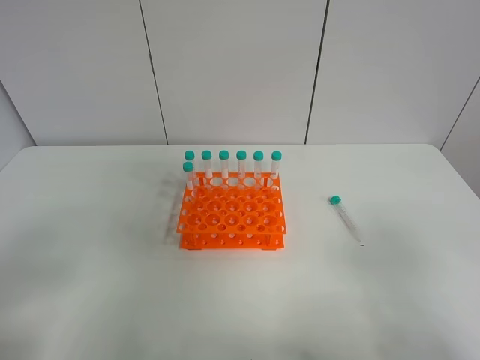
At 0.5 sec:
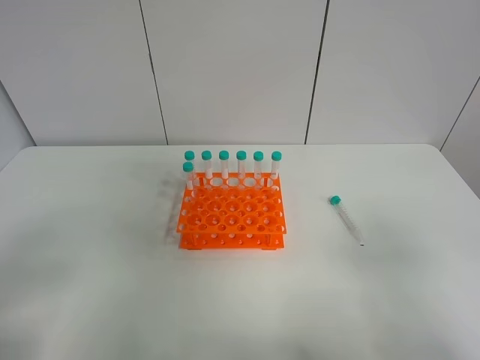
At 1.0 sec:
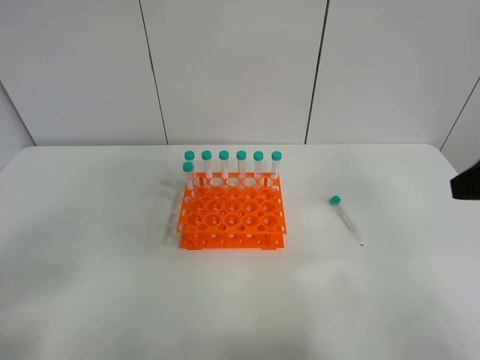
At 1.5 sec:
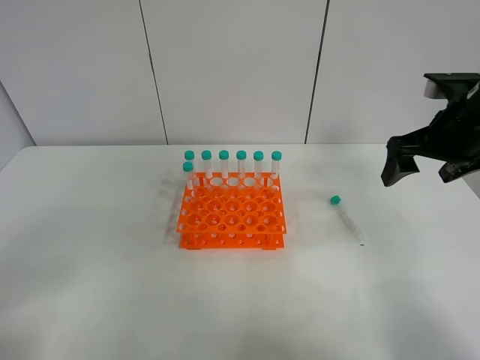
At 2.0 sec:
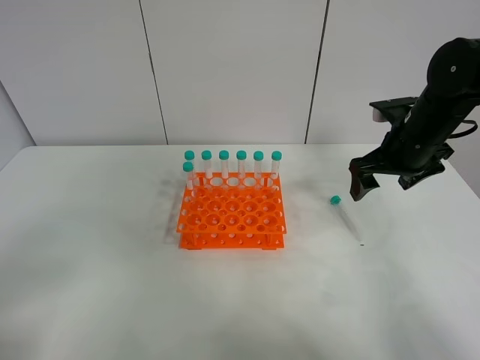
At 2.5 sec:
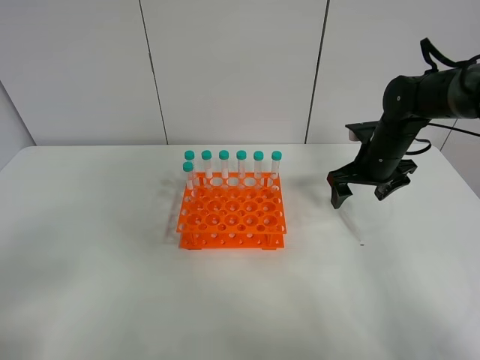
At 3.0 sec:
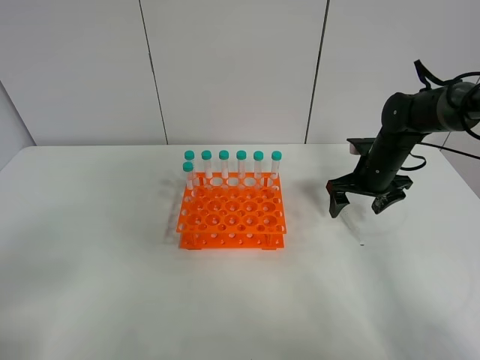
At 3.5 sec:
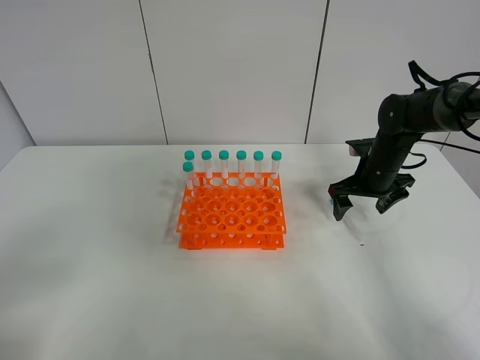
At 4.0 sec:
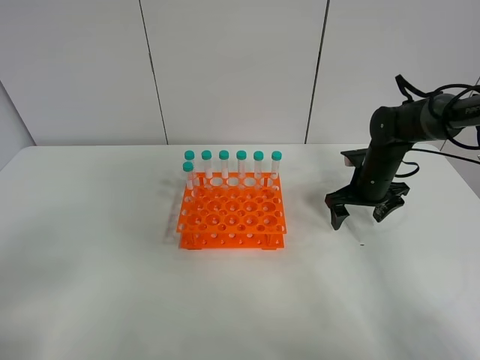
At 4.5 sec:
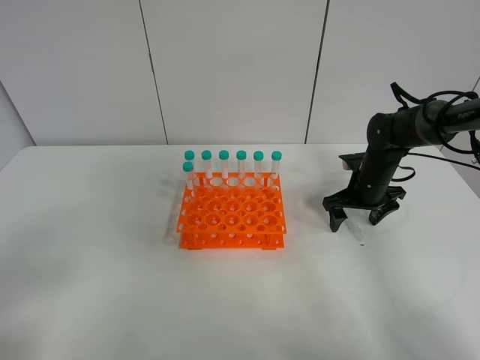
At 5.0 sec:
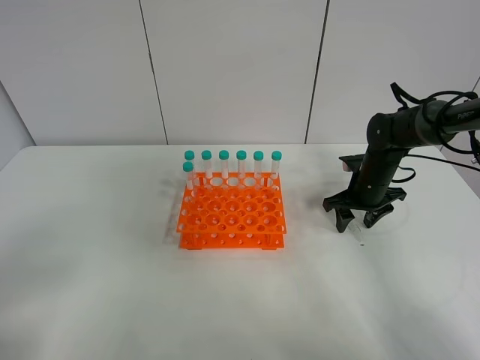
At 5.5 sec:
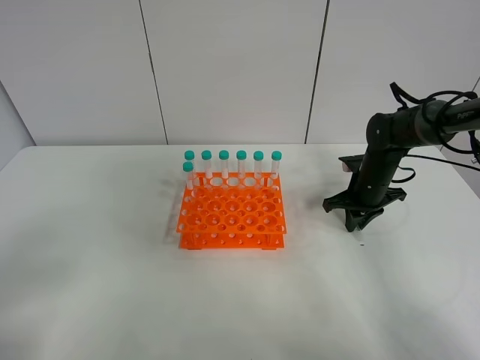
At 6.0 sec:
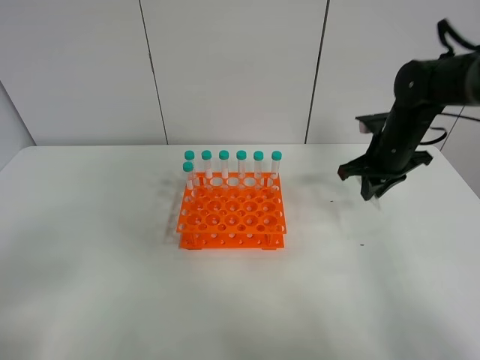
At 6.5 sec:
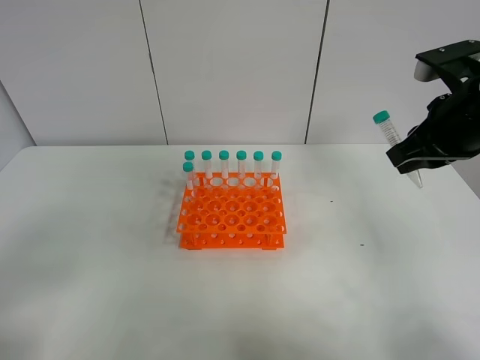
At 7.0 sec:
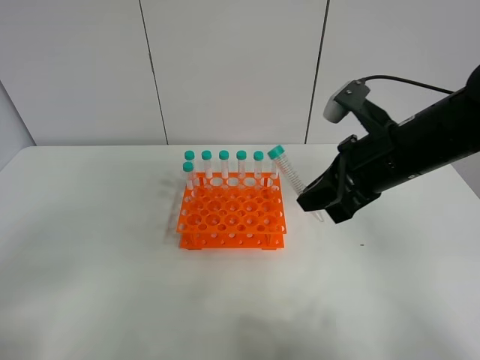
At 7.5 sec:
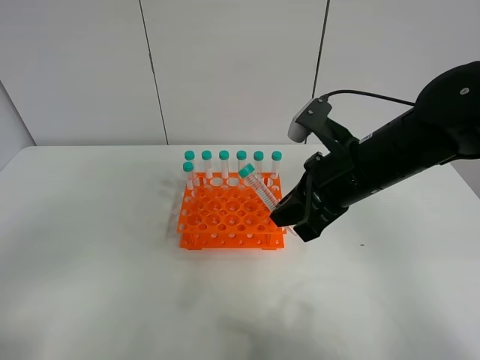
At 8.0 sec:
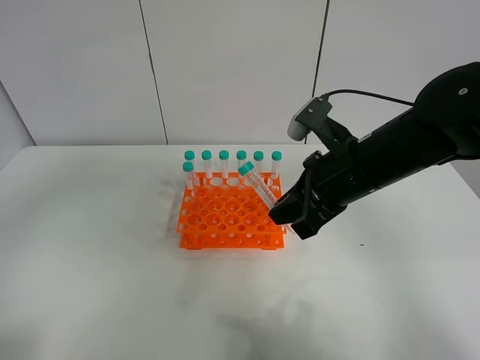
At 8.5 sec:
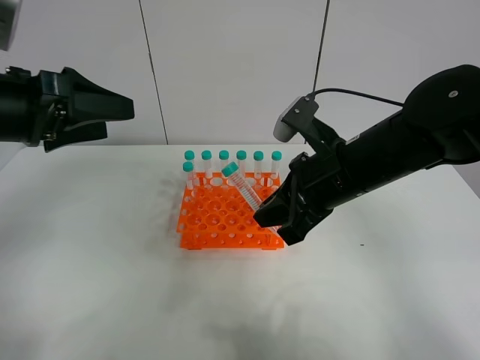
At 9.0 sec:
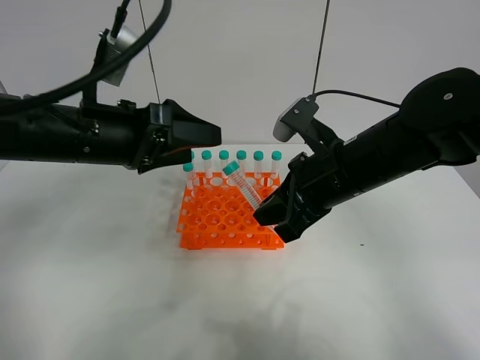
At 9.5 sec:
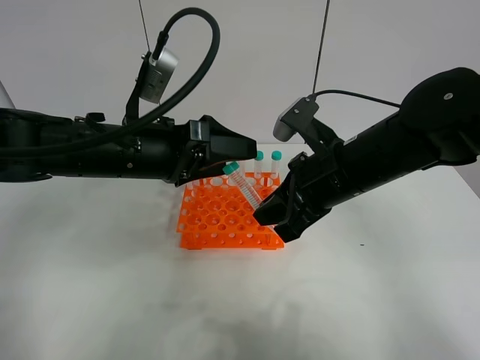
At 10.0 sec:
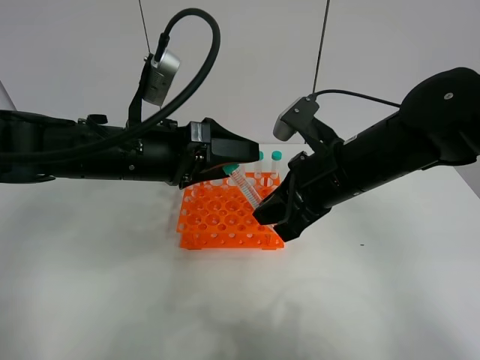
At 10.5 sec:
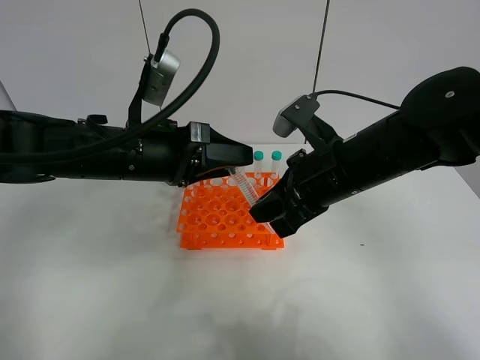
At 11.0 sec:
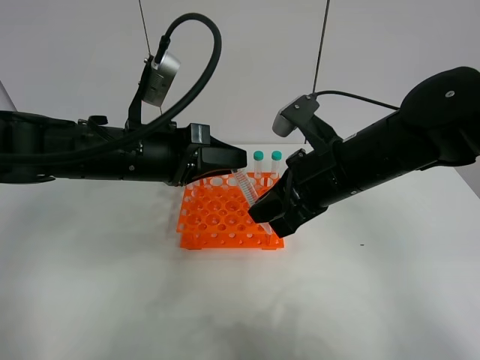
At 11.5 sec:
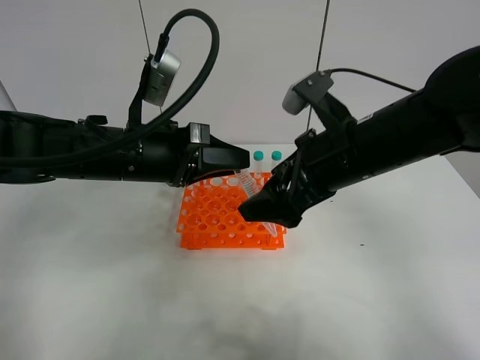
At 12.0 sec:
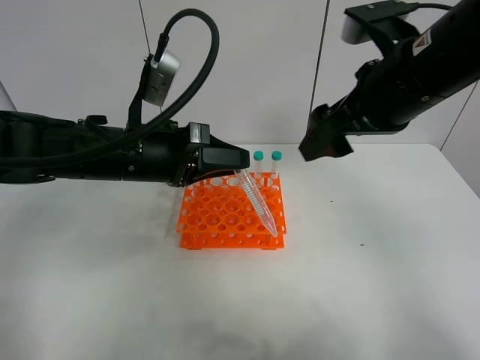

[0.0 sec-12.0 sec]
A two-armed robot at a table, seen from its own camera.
Task of the whole recording: Put the test tube on the table back onto the test tube rack.
Step, 0.0 sec to 6.0 sec: Pick up the test tube with the right gripper.
Step, 6.5 sec to 12.0 sec: Move the test tube from the right gripper to the left gripper.
0.0 sec to 2.0 sec: The right gripper goes some 35 cm forward.
2.0 sec to 4.0 sec: The right gripper is displaced downward and forward by some 15 cm.
4.0 sec to 6.0 sec: The right gripper goes roughly 10 cm upward, and closes up.
6.0 sec to 8.0 sec: The left gripper moves forward and upward, approximately 15 cm. The right gripper travels backward and to the left by approximately 15 cm.
8.0 sec to 10.0 sec: The left gripper moves to the right, forward and downward, approximately 25 cm.
10.0 sec to 12.0 sec: The left gripper closes up. Meanwhile the right gripper is displaced upward and to the right by some 10 cm, and opens its fingers.

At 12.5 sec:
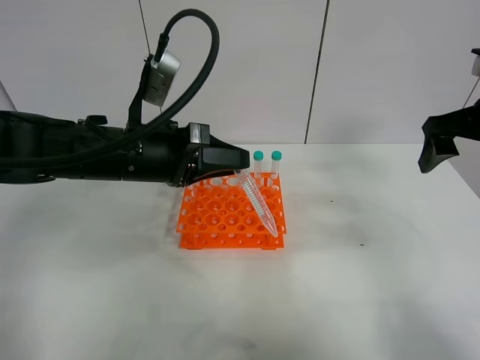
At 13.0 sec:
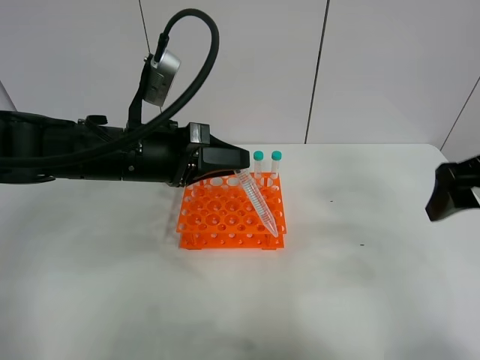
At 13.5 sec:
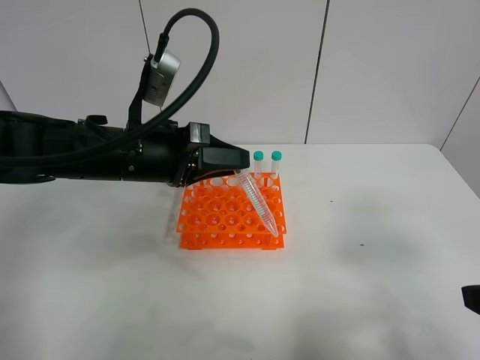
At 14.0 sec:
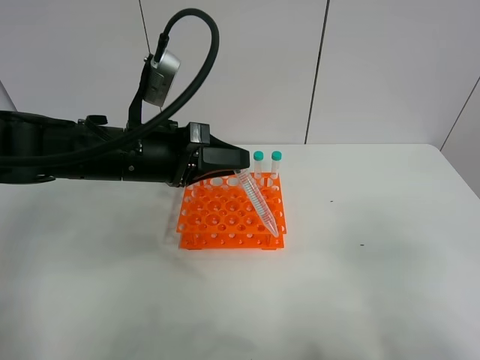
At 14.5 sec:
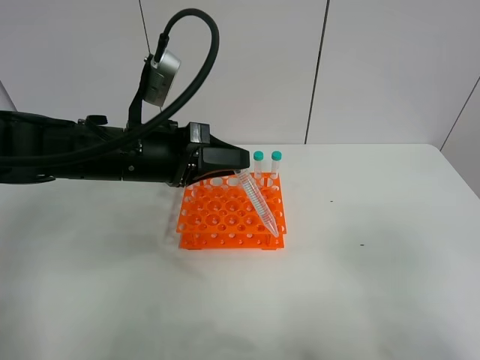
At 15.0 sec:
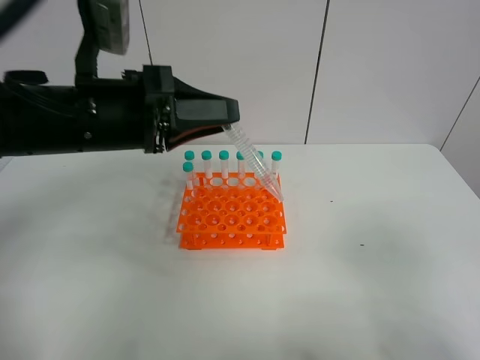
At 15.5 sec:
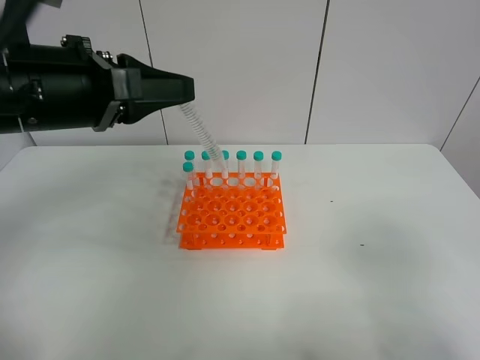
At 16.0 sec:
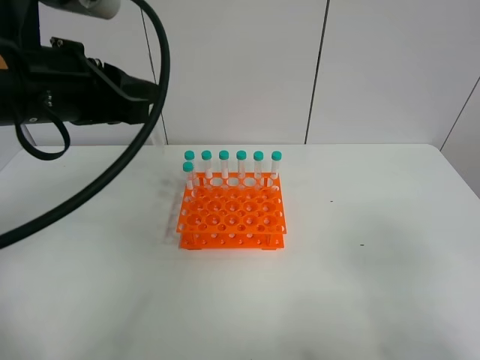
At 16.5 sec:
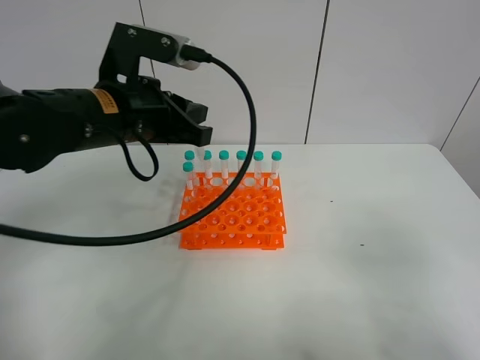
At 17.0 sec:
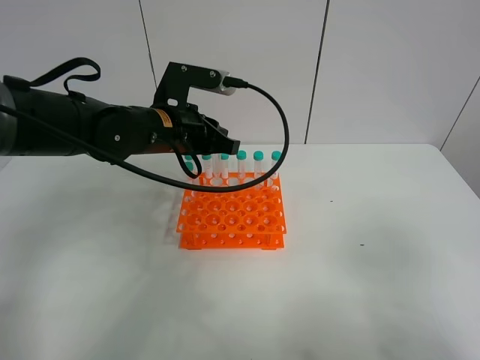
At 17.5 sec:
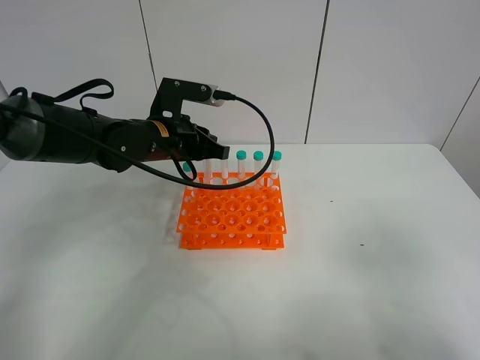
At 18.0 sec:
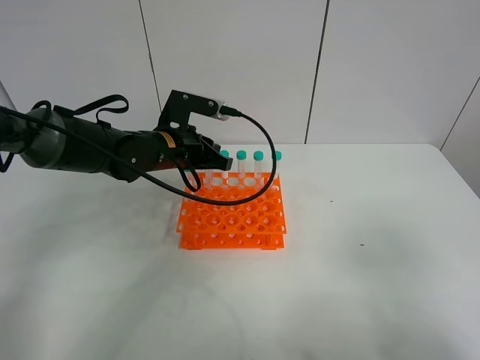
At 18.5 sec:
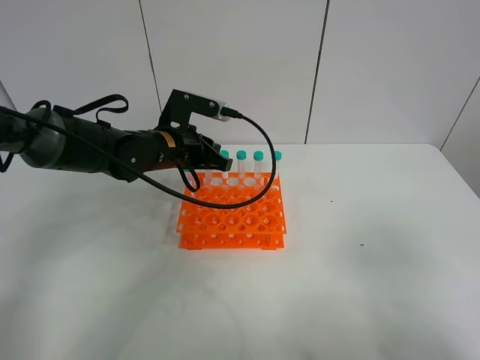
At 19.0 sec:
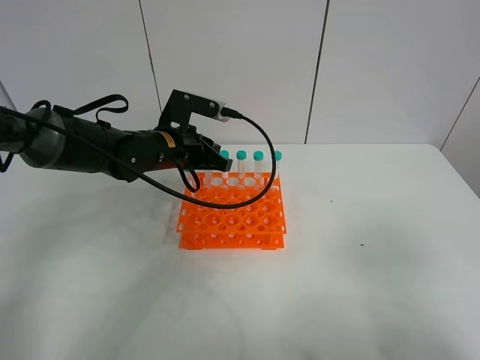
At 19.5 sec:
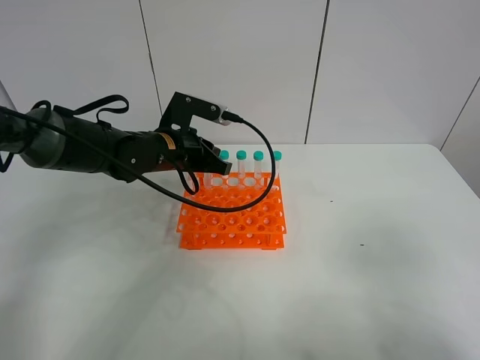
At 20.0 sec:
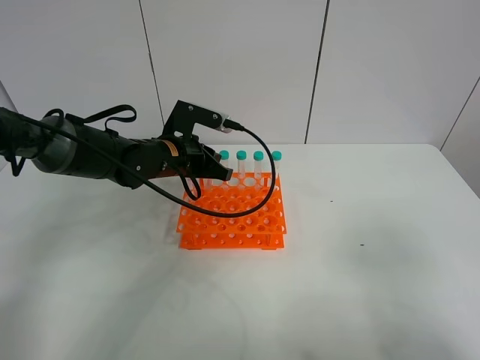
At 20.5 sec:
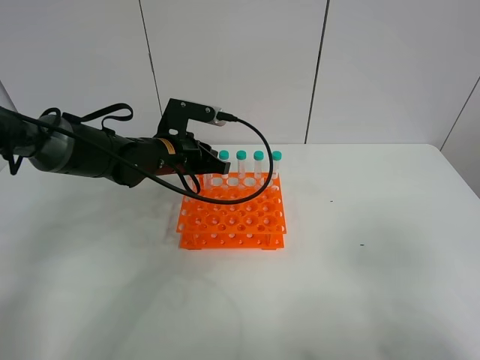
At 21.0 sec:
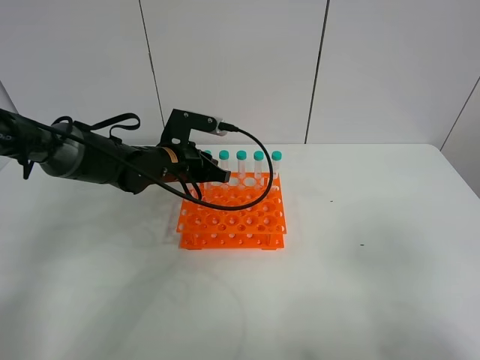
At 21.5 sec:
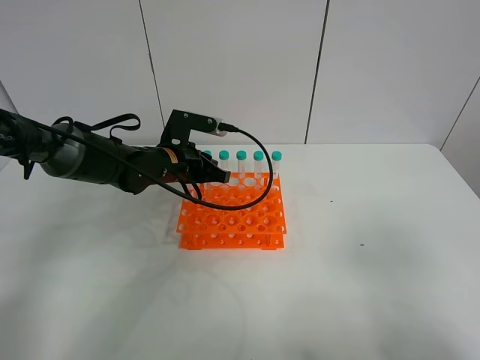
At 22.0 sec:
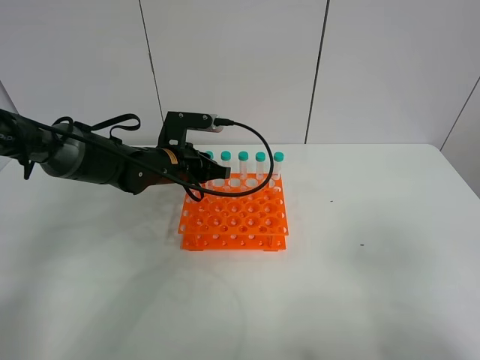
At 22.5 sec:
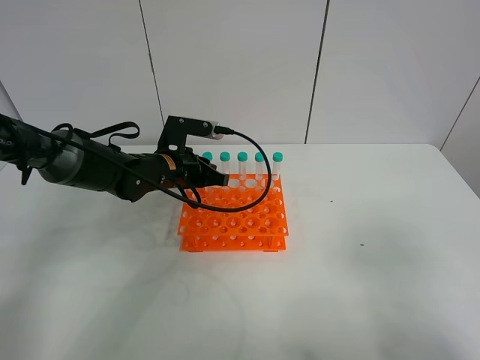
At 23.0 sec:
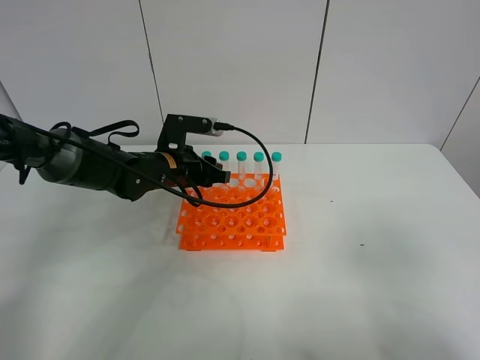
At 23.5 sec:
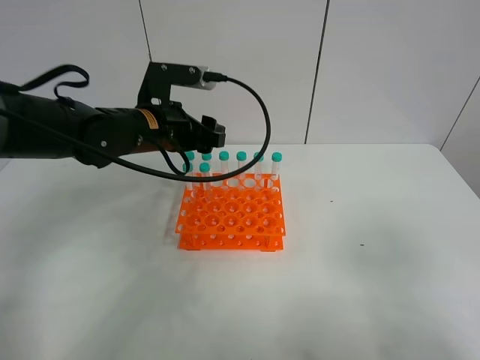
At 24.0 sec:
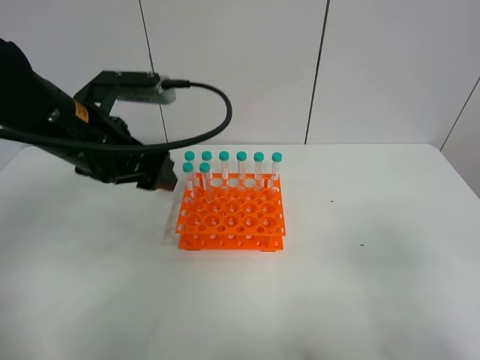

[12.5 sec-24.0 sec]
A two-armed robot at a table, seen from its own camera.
Task of the whole recording: Put the test tube on the table back onto the test tube rack.
Step, 12.5 sec to 24.0 sec: Place the test tube on the test tube rack with the left gripper.
12.5 sec to 14.5 sec: The right gripper shifts approximately 30 cm backward.
14.5 sec to 16.5 sec: The left gripper goes some 5 cm upward.
16.5 sec to 18.5 sec: The left gripper heads downward and forward, covering approximately 15 cm.
18.5 sec to 22.0 sec: The grippers make only small movements.
22.0 sec to 24.0 sec: The left gripper heads upward, backward and to the left, covering roughly 20 cm, and opens up.

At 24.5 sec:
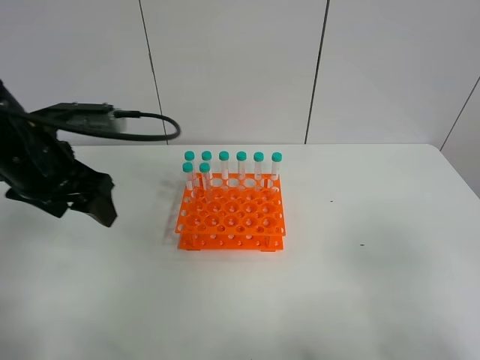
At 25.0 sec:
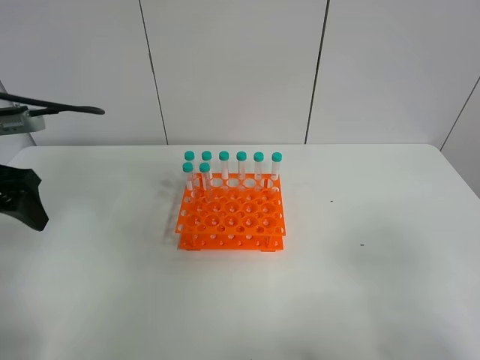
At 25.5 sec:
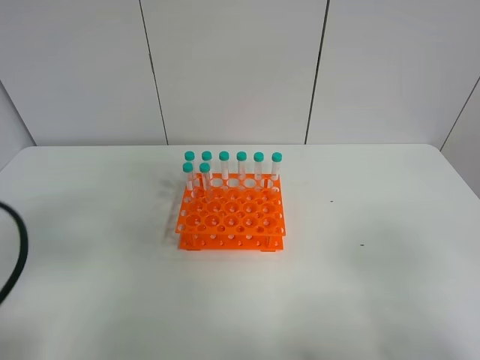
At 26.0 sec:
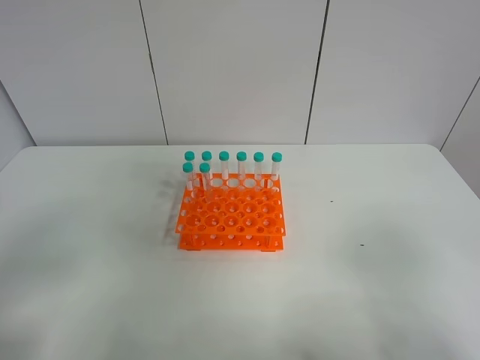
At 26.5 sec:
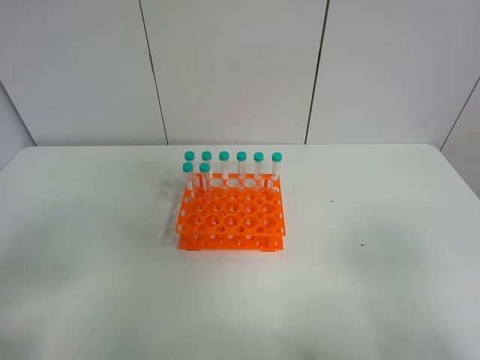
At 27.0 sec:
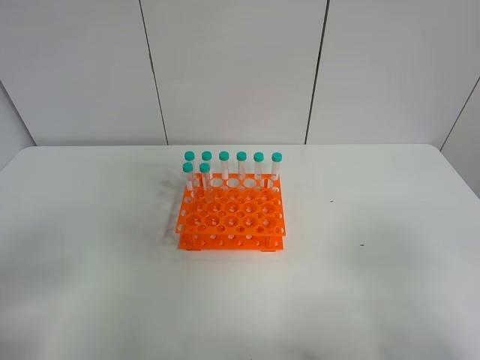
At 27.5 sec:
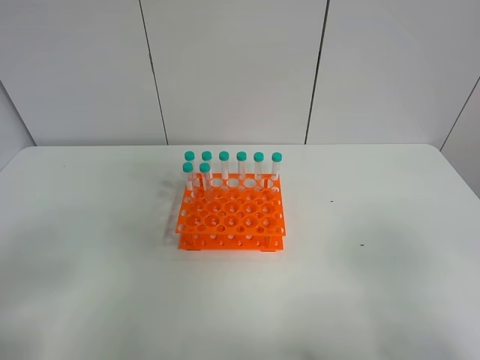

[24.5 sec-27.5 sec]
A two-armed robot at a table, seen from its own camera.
Task of the whole recording: Put the test tube on the table back onto the test tube rack.
24.5 sec to 26.0 sec: The left gripper travels backward by about 25 cm.
